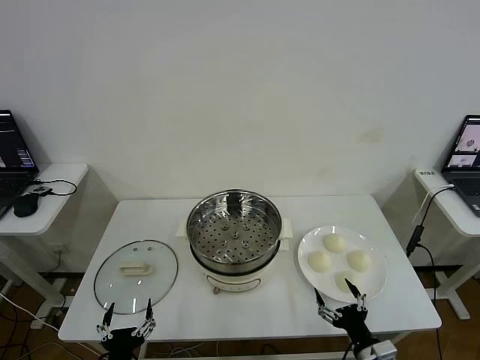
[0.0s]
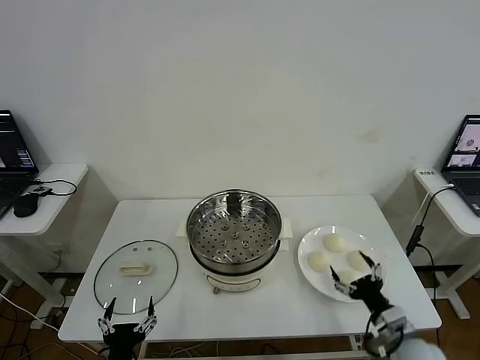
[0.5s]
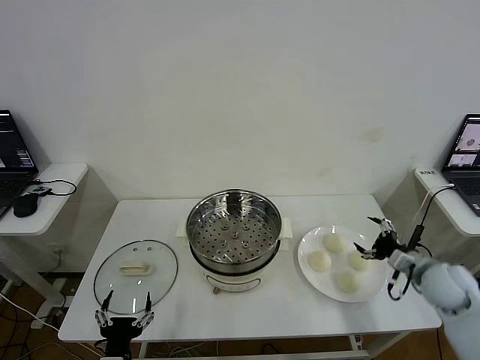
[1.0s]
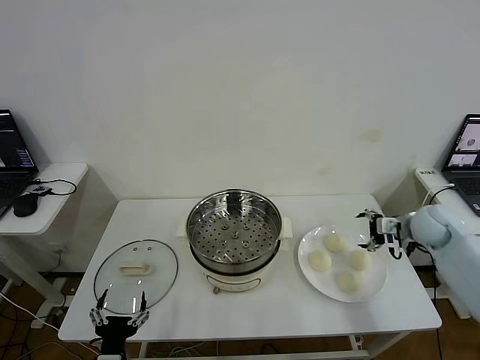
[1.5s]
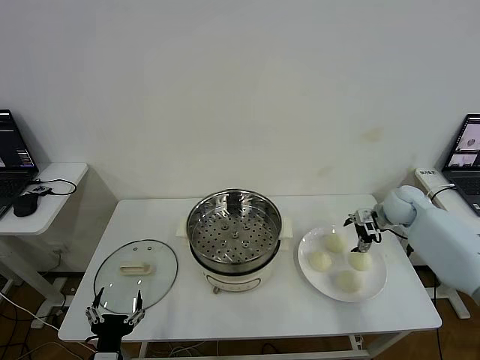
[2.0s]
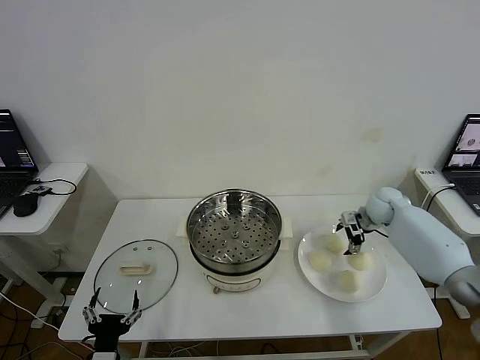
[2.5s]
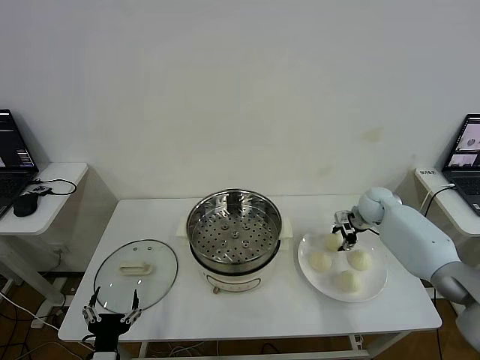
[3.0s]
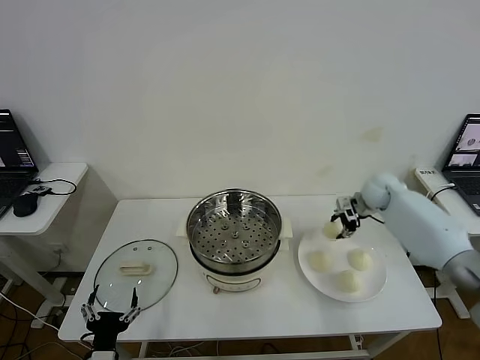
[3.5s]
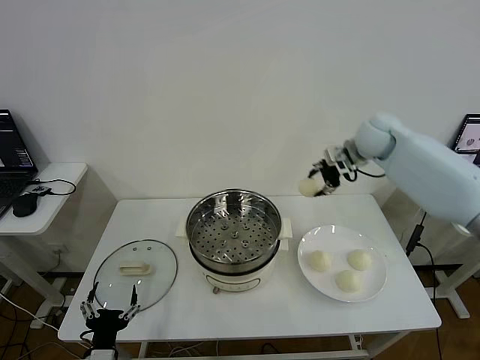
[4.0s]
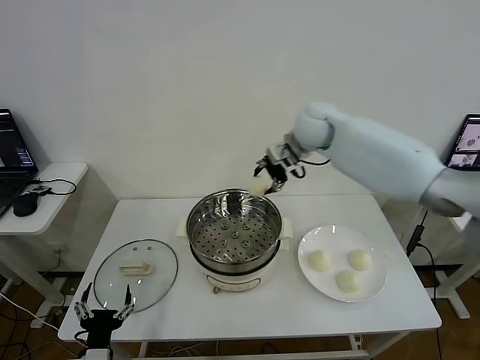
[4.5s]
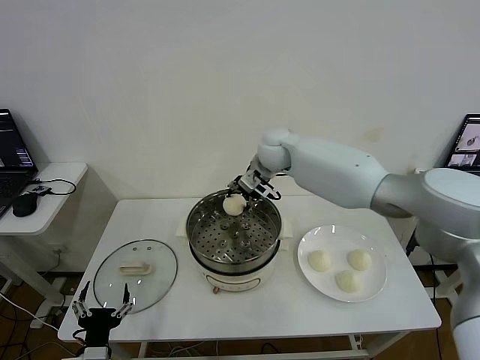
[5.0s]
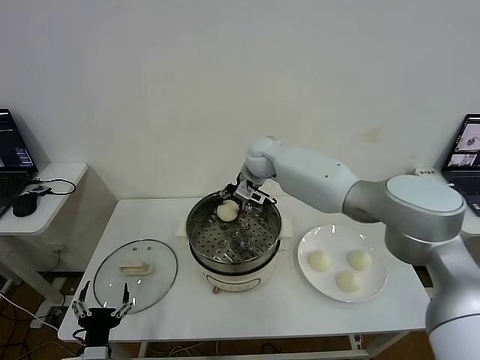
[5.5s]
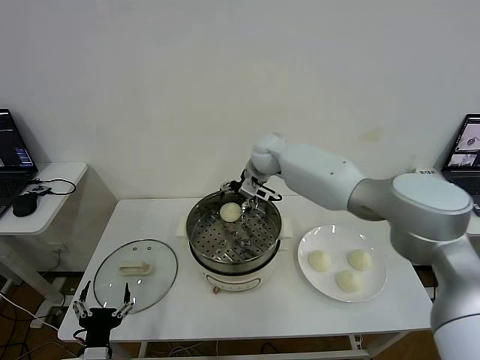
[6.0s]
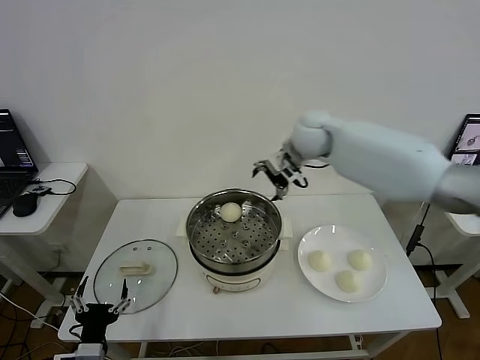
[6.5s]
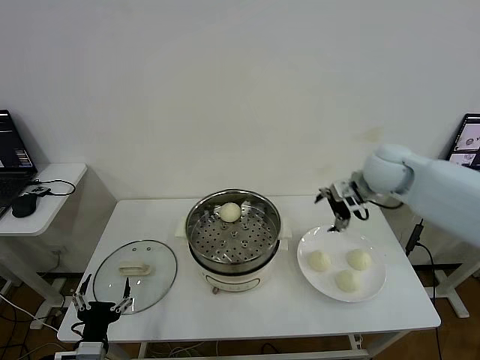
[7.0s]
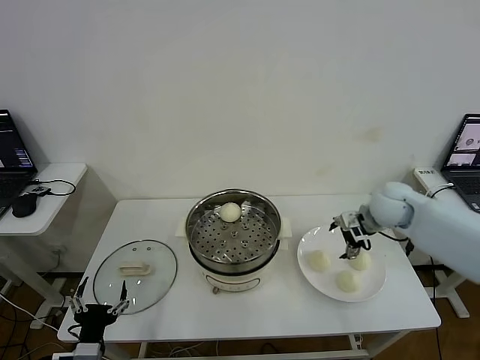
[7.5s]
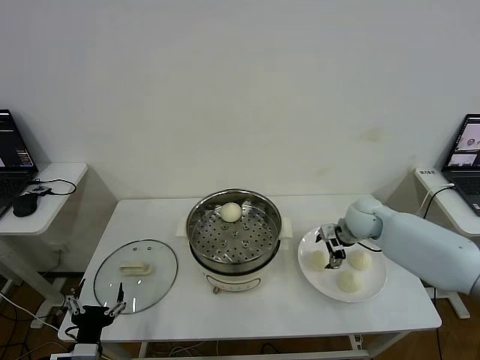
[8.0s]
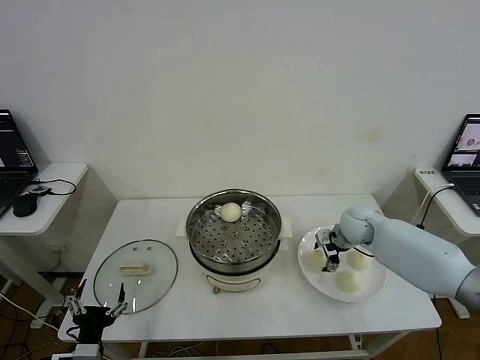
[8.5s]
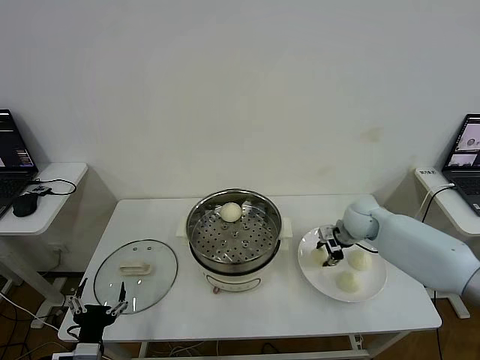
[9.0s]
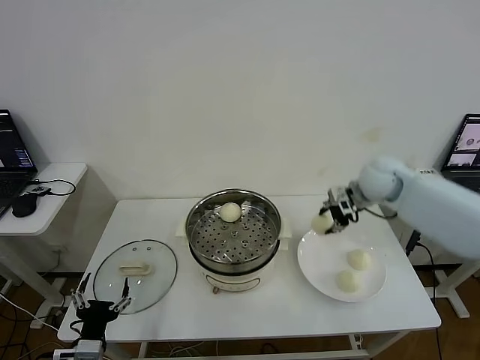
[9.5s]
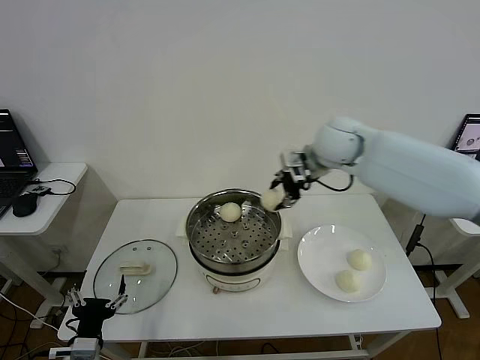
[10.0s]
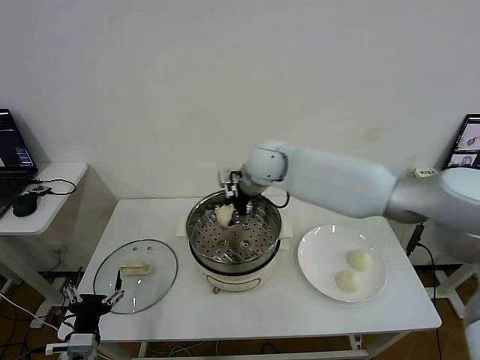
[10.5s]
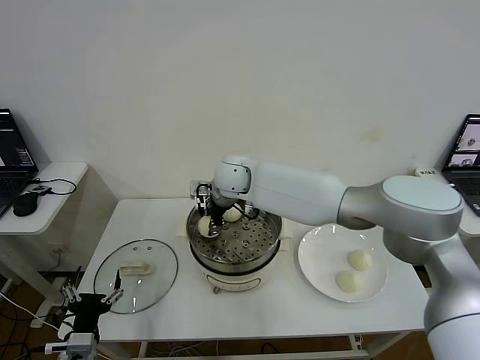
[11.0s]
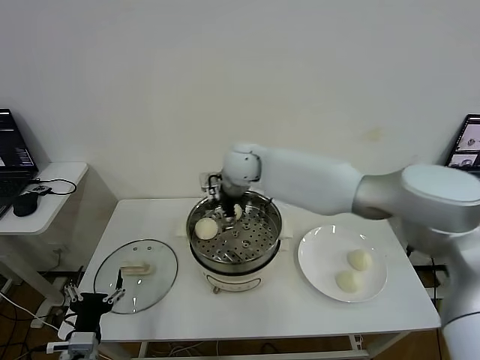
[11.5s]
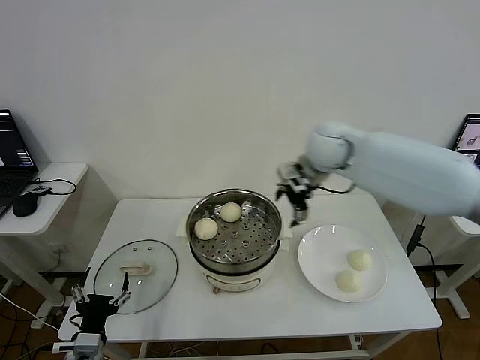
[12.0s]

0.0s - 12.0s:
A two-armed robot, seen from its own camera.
Step, 0.0s - 3.0s: Grasp the baozi in the plate with right gripper.
Step, 3.5s - 5.5s: Place the baozi on the steamer with right gripper.
Step, 6.0s - 8.5s: Grasp the baozi in the plate with right gripper.
Step, 9.0s - 11.0s: Place the baozi on the steamer with right gripper.
2.0s - 4.0s: The right gripper heads upward and to the left, covering some 25 cm, and closes.
4.0s - 6.0s: The right gripper heads to the left and downward, covering roughly 20 cm, and opens up.
6.0s - 8.0s: The right gripper is displaced to the right, downward and backward by approximately 30 cm.
8.0s - 10.0s: The right gripper is displaced upward and to the left by approximately 25 cm, and closes its fingers.
10.0s - 12.0s: The right gripper travels to the left and back again, about 20 cm each way, and opens.

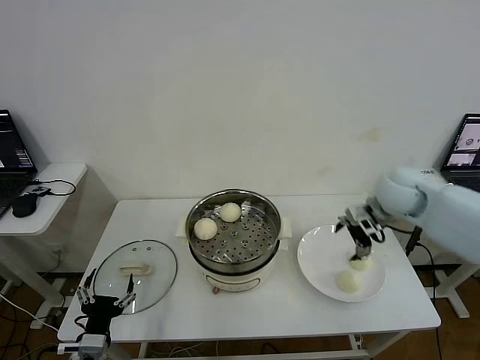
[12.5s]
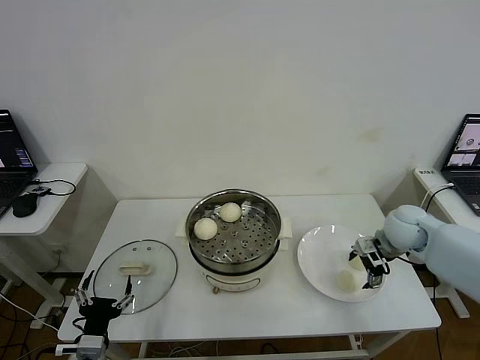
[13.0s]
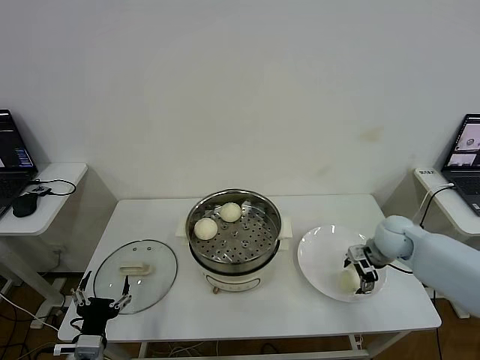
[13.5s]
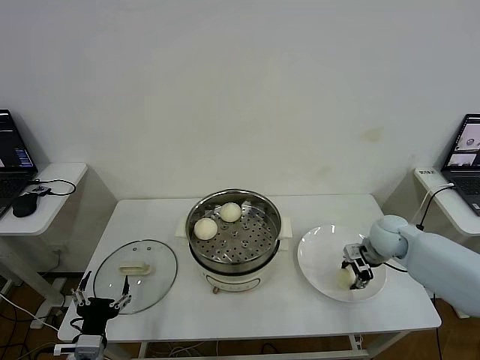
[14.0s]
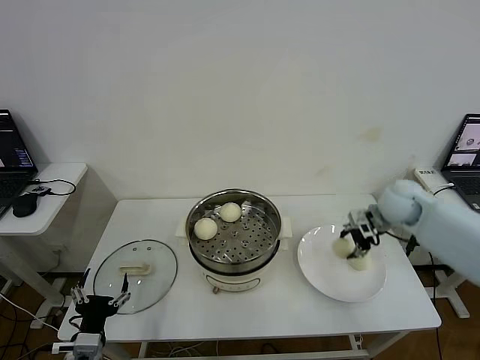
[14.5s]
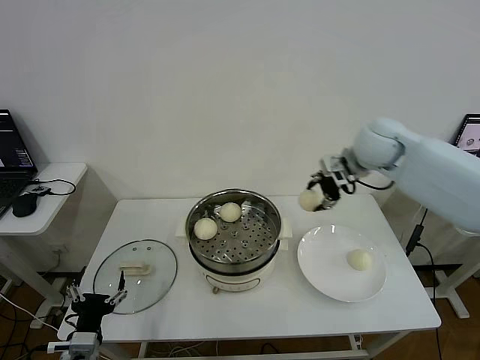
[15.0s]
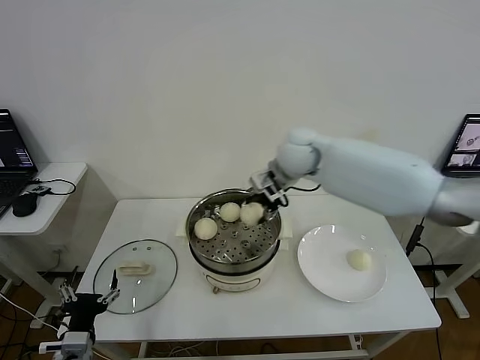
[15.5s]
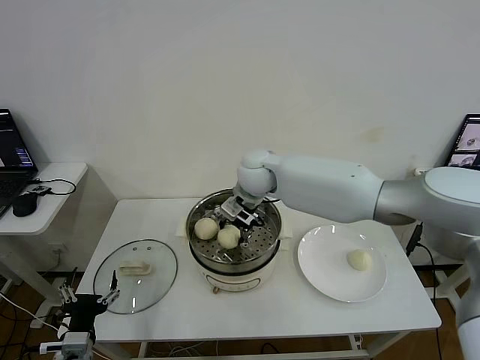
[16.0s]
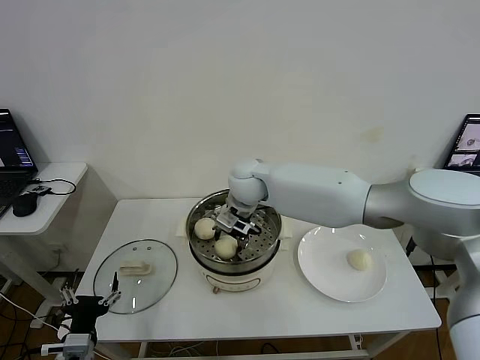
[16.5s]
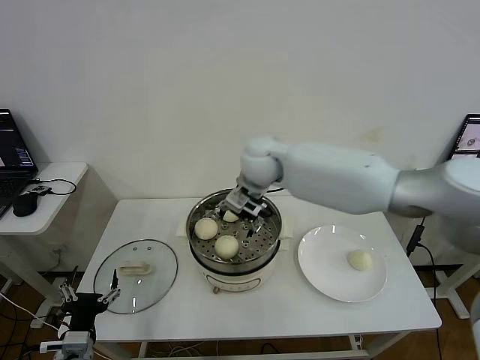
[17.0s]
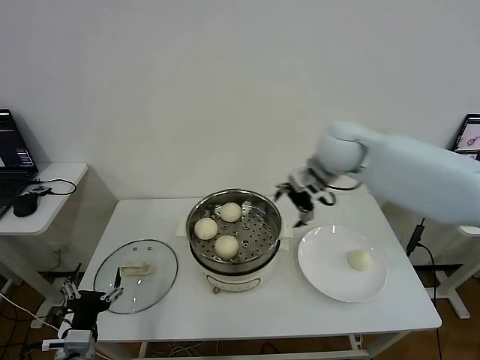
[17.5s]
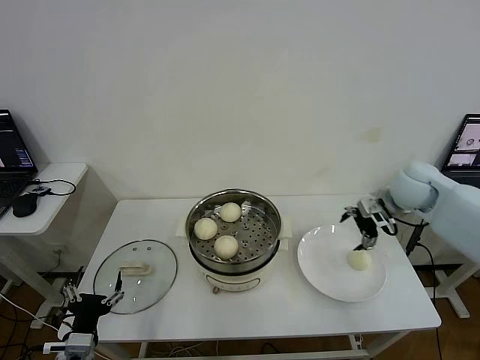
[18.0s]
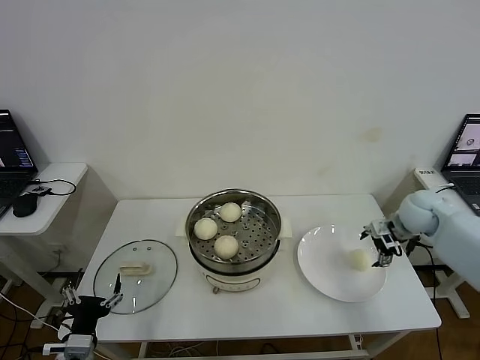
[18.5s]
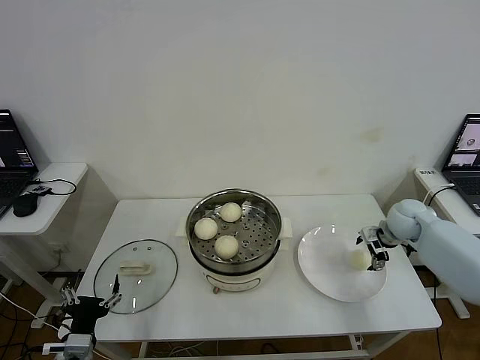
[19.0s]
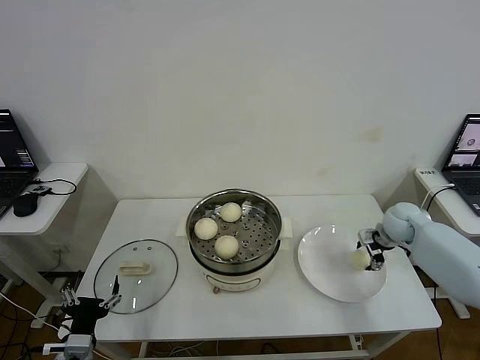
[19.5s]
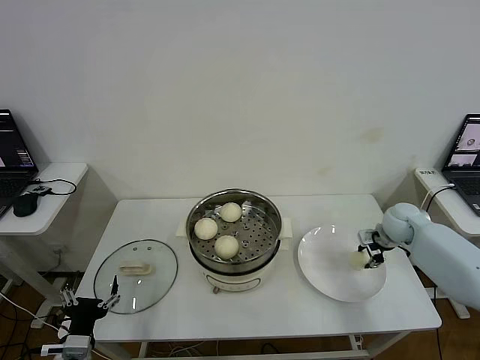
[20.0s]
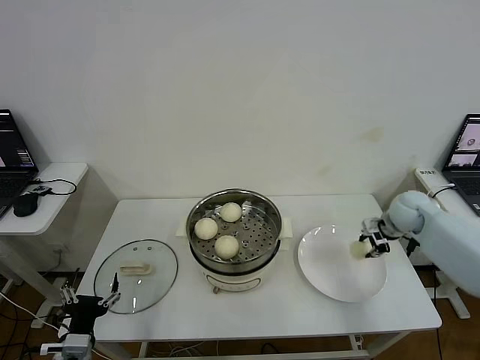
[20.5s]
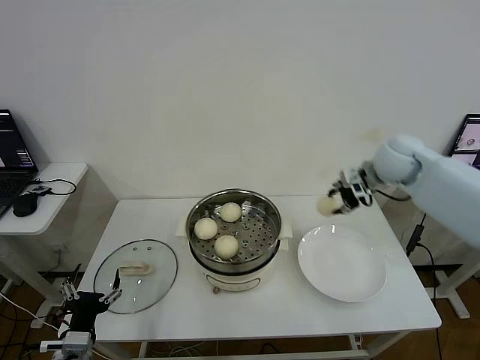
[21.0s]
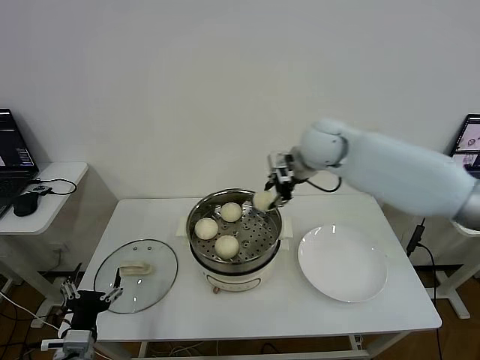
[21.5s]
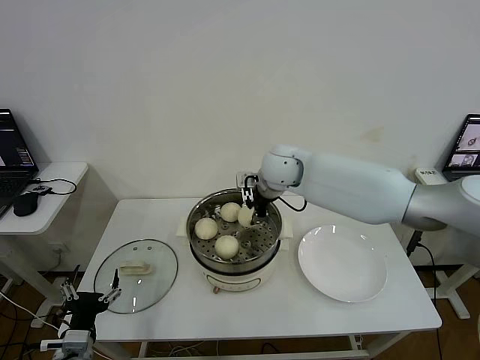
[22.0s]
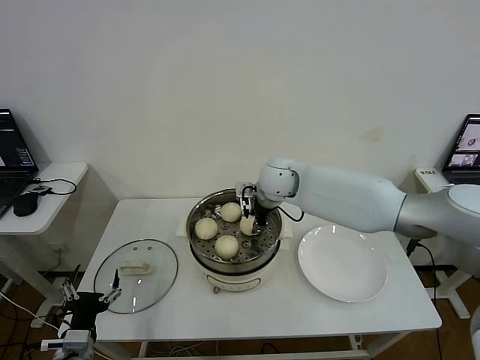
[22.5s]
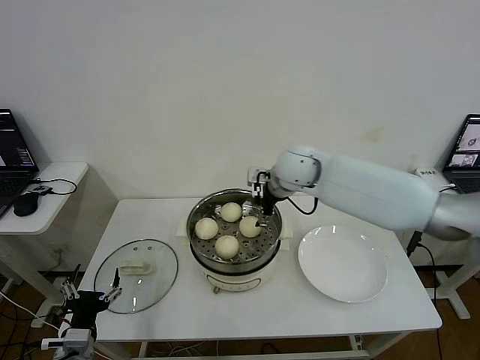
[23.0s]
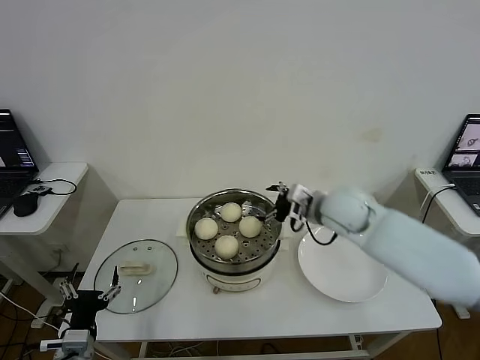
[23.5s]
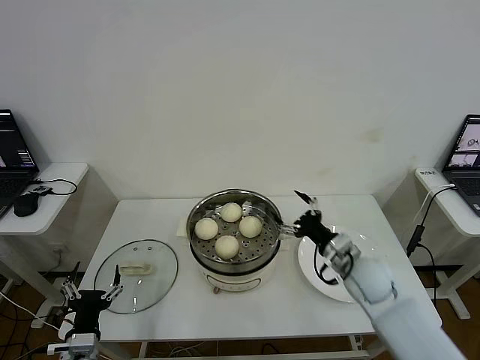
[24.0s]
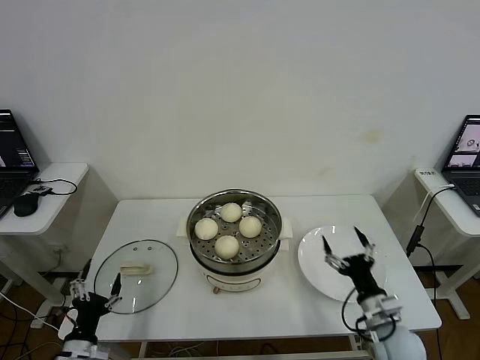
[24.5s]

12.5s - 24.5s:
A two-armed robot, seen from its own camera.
Step, 12.5s - 14.0s: Grasp the baozi in the plate with right gripper.
Step, 14.5s - 16.5s: Place the baozi on the steamer with right gripper.
Step, 17.0s - 19.5s: Grasp the baozi in the plate with right gripper.
Step, 20.0s - 22.5s: Place the baozi on the steamer with right gripper.
12.5s - 14.5s: The right gripper moves about 10 cm downward and comes back, and closes up.
14.5s - 16.5s: The right gripper is displaced to the left by some 35 cm.
16.5s - 18.5s: The right gripper goes about 40 cm to the right.
18.5s - 20.5s: The right gripper closes.
20.5s - 22.5s: The right gripper is displaced to the left by about 35 cm.
22.5s - 24.5s: The right gripper travels backward, to the right and downward by roughly 40 cm, and opens up; the left gripper changes place by some 5 cm.

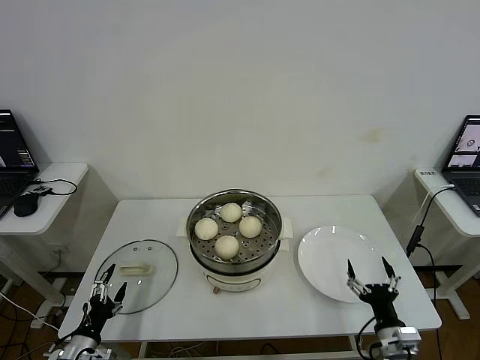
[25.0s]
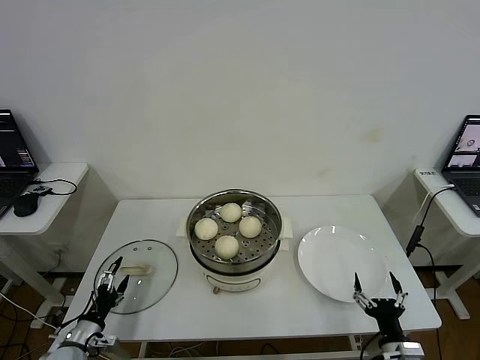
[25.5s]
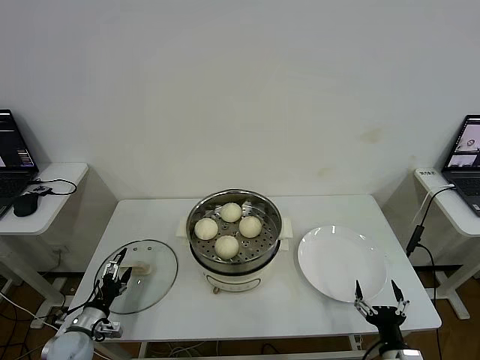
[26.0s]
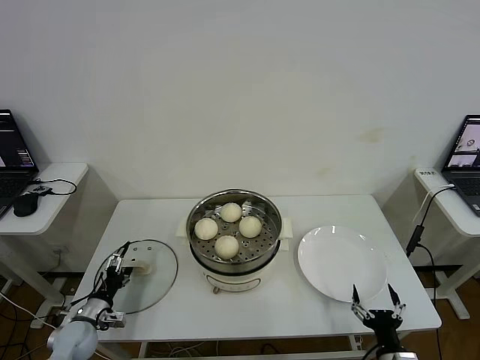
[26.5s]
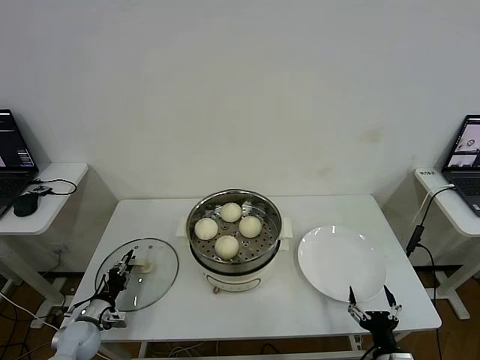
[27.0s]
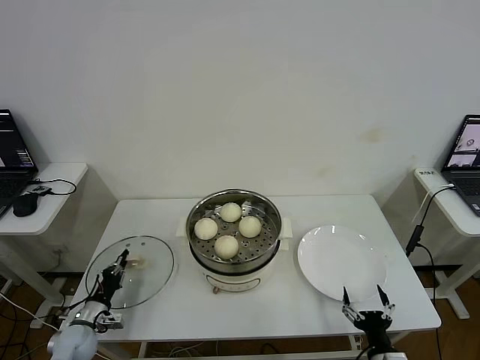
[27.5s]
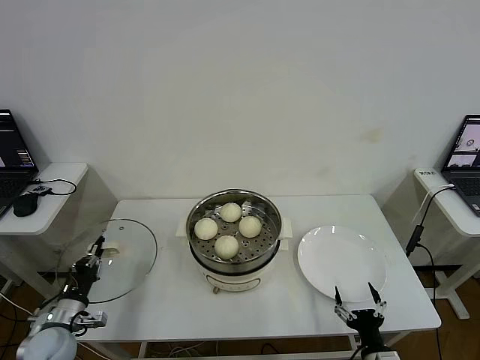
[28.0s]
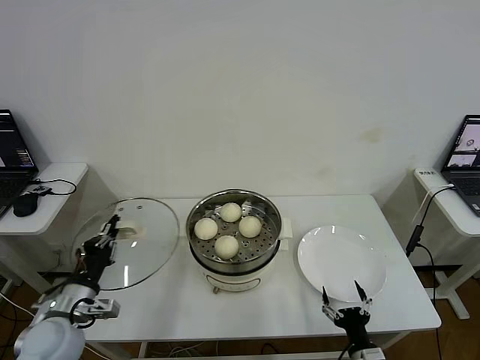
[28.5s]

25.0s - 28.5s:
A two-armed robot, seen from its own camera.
Step, 25.0s - 27.0s: Grasp the pot lid with left gripper.
25.0s - 27.0s: The left gripper is displaced forward by some 10 cm, and closes its fingers; the right gripper shifts by some 5 cm.
27.0s - 28.5s: The left gripper travels upward by roughly 20 cm, and closes its fingers.
